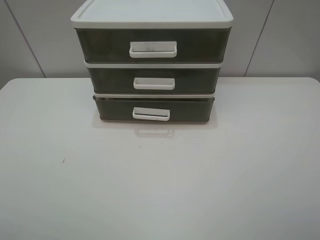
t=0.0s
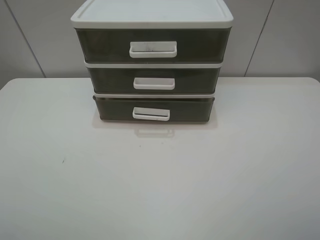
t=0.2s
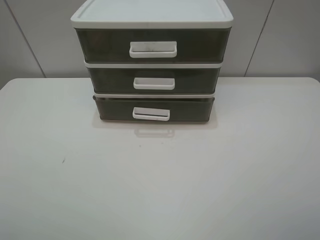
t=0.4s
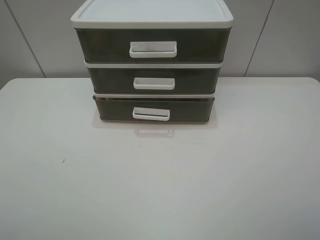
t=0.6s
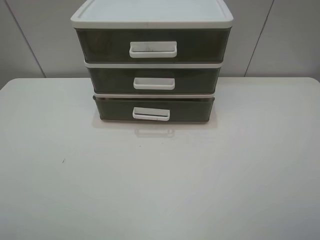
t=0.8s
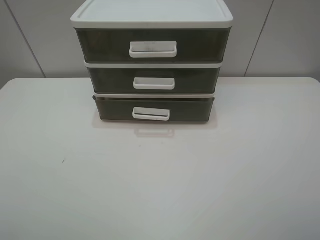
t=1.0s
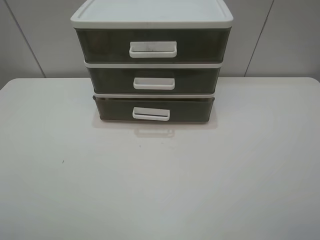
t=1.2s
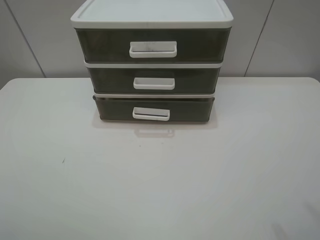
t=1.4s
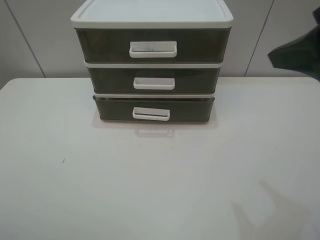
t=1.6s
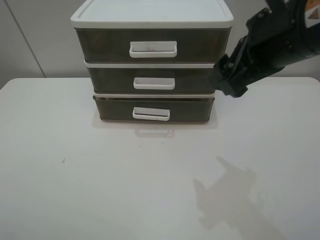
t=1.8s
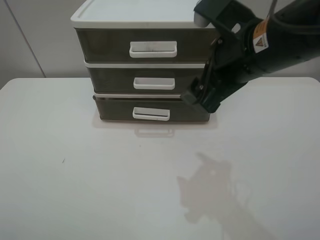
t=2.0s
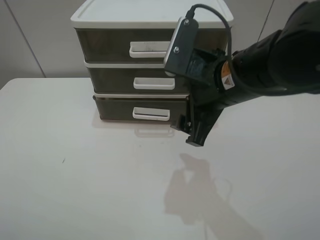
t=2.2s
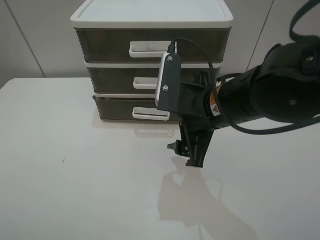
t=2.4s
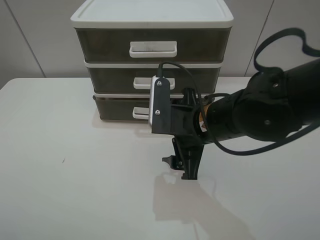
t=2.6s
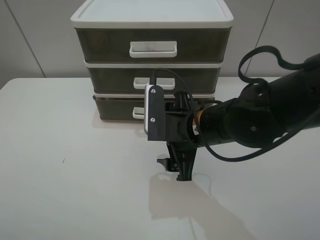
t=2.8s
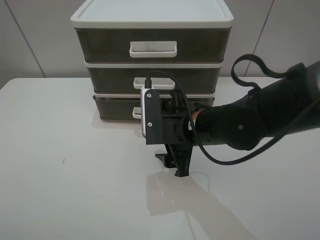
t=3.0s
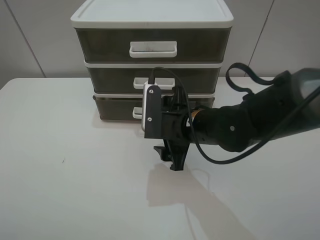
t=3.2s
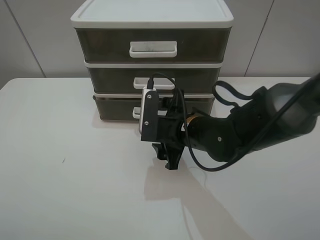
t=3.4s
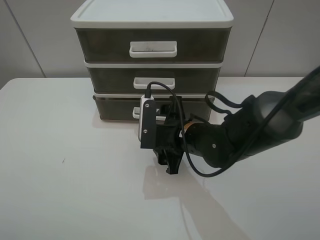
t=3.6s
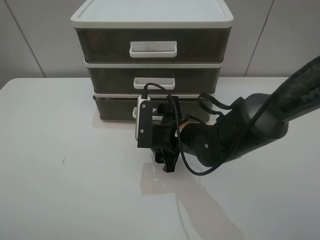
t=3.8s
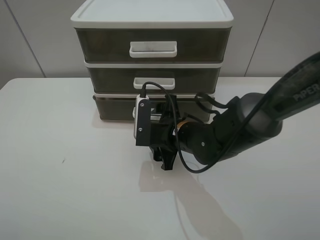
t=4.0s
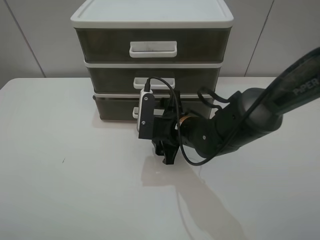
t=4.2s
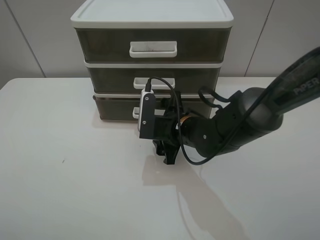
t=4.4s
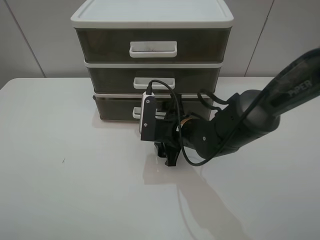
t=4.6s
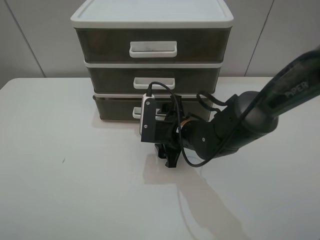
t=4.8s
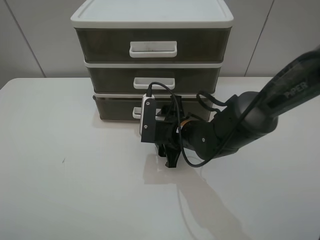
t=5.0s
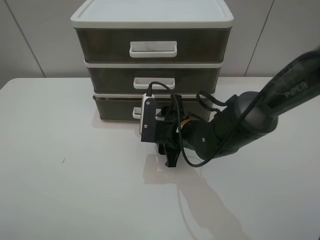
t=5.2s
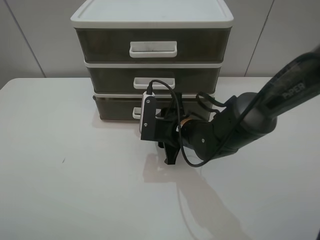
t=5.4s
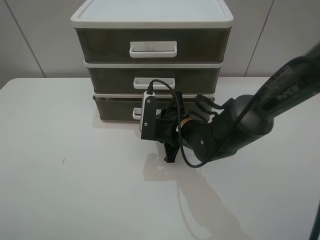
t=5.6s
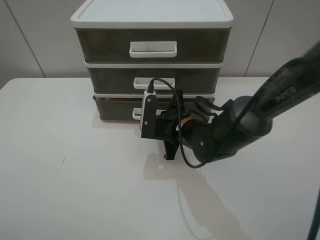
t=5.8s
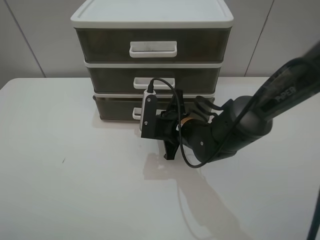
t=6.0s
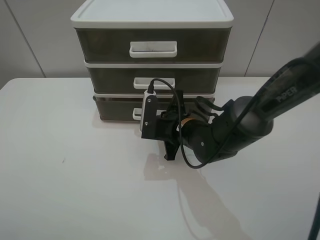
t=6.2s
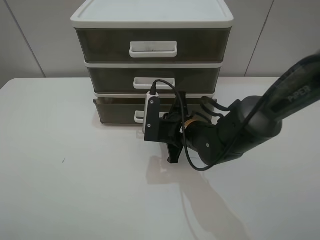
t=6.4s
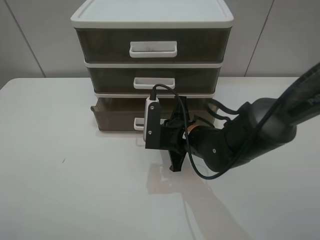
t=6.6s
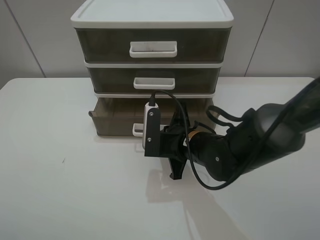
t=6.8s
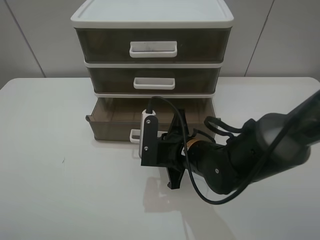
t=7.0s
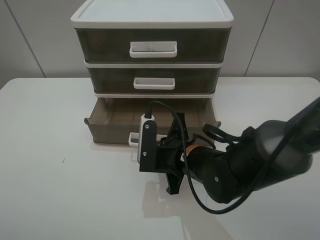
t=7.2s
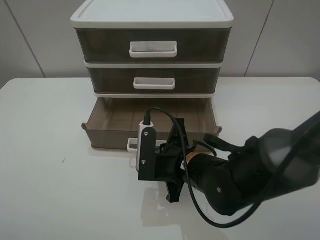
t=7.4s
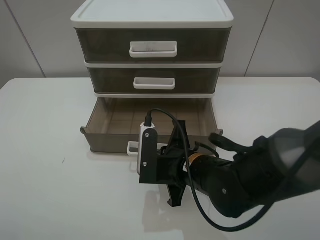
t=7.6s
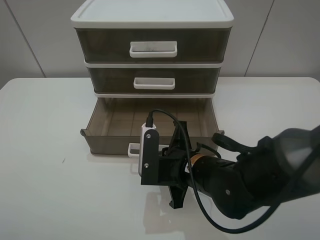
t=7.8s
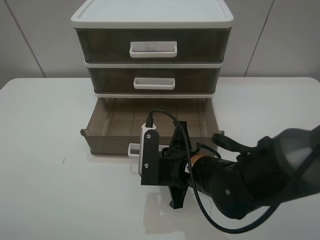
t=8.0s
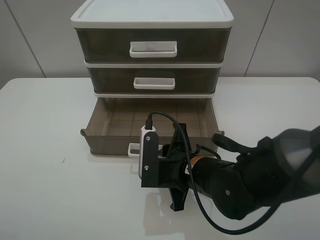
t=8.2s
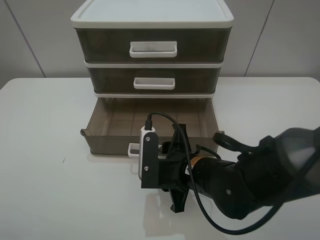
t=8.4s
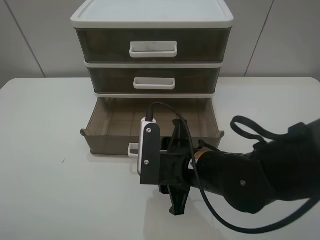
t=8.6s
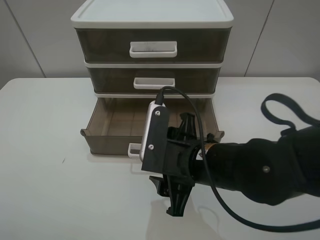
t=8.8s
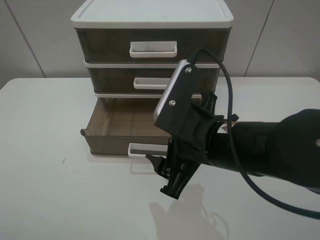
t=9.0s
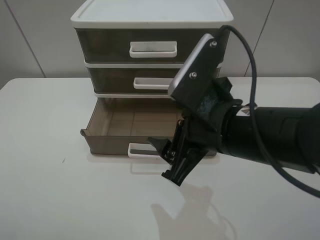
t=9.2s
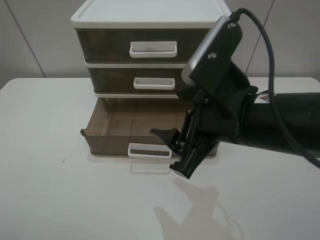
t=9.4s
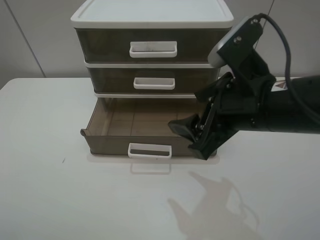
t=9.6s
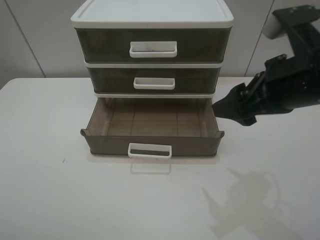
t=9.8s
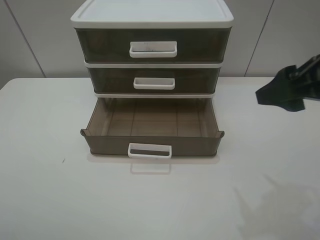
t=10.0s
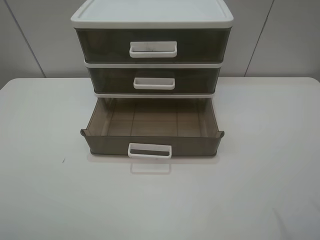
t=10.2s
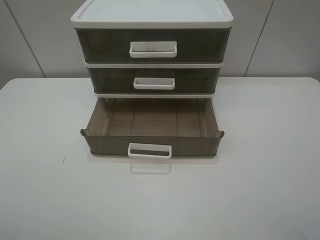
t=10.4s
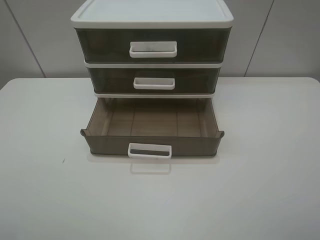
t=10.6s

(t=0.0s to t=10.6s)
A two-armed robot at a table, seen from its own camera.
Task of the whole recording: open the bottom drawer.
Step, t=0.0s - t=6.2s: Grab the bottom drawer with the right gripper.
Step, t=6.4s - t=8.6s: Pull open the drawer with the right gripper.
t=0.0s - t=1.6s: The right gripper moves forward, to the left and upward, approximately 20 cm.
t=1.6s - t=3.0s: The right gripper moves downward and to the left, roughly 25 cm.
t=3.0s - t=4.6s: The right gripper shifts some 5 cm downward.
t=4.6s - t=6.0s: The right gripper closes up.
t=6.0s - t=7.6s: The right gripper shifts some 10 cm backward.
t=7.6s - t=9.0s: The right gripper goes roughly 10 cm upward, and opens up.
t=9.0s - t=10.6s: The right gripper moves to the right, upward and backward, approximately 30 cm.

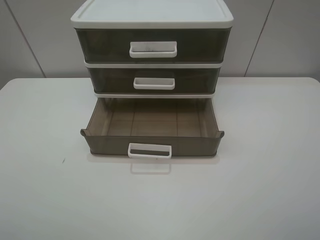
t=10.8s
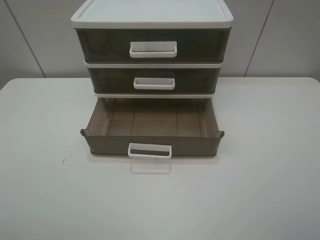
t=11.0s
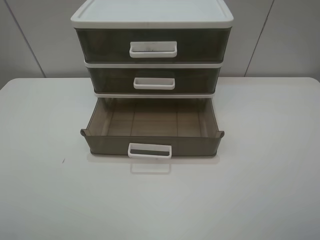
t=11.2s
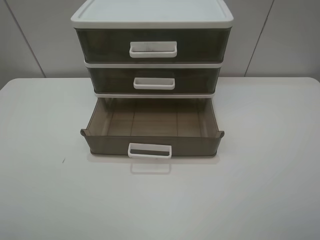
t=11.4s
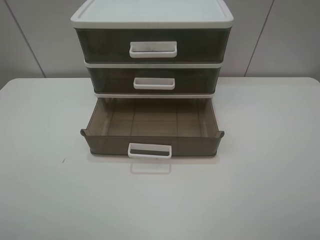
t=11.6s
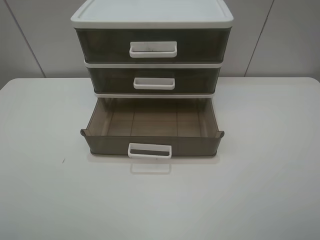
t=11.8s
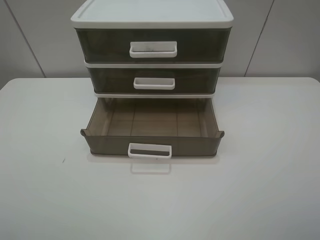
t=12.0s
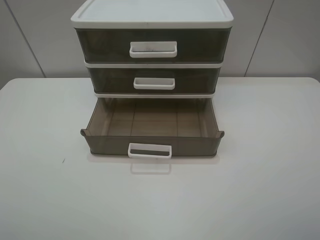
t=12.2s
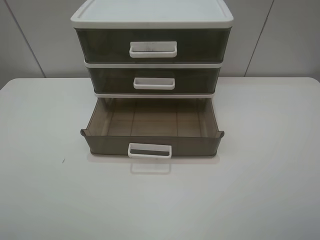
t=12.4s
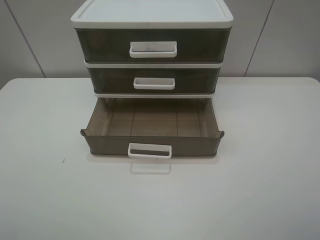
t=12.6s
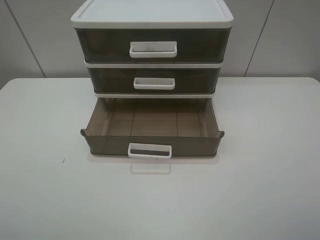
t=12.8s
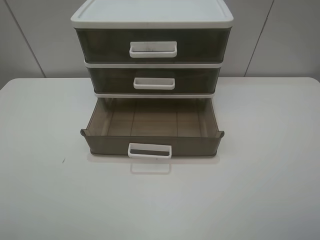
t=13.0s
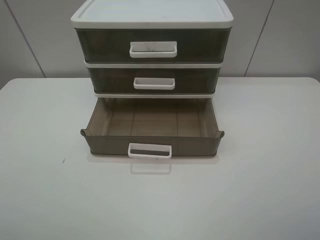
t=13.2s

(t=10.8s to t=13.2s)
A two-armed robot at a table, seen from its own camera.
Task of the whole recording: open the bottom drawer.
t=12.0s - t=13.2s: Neither gripper changes place.

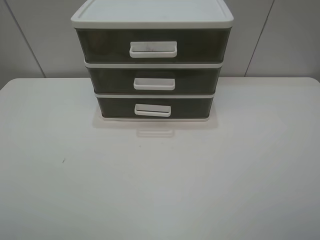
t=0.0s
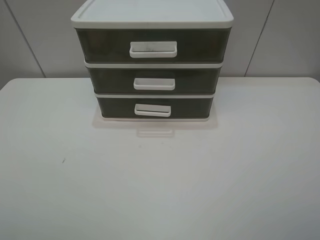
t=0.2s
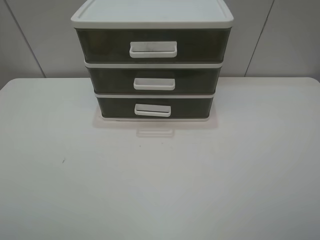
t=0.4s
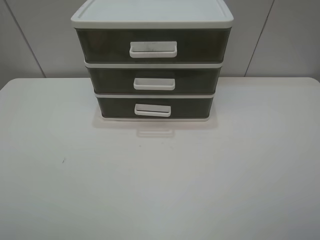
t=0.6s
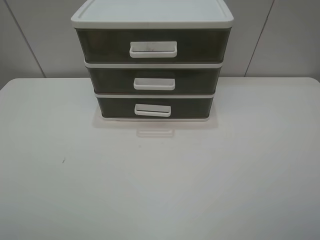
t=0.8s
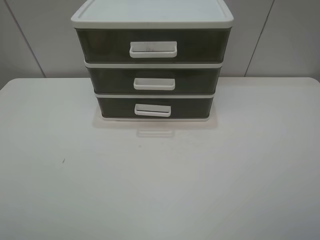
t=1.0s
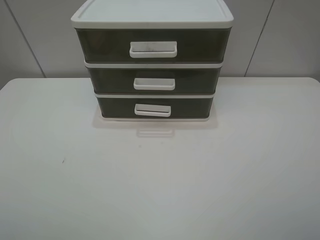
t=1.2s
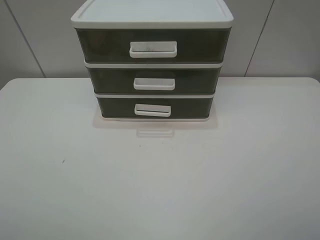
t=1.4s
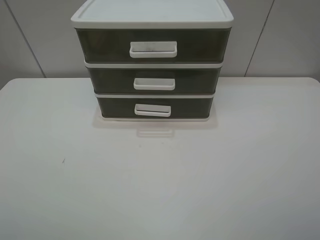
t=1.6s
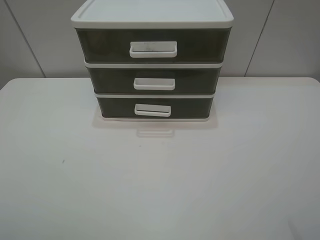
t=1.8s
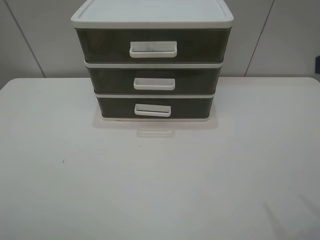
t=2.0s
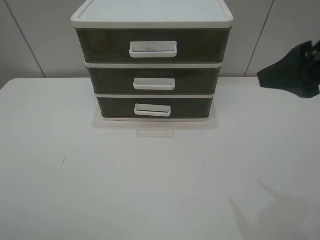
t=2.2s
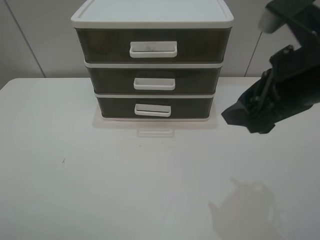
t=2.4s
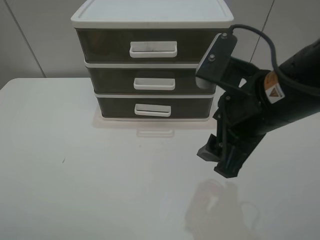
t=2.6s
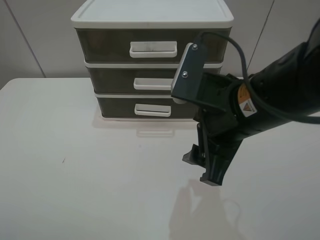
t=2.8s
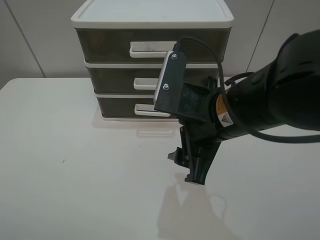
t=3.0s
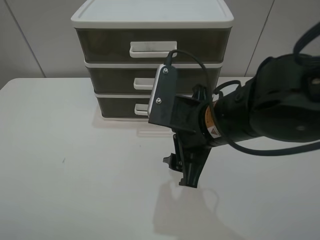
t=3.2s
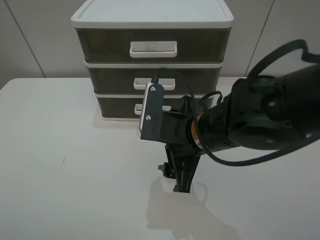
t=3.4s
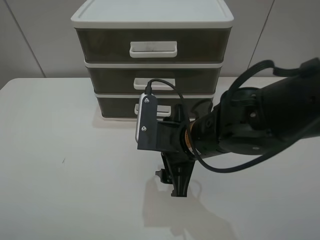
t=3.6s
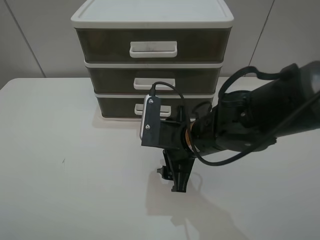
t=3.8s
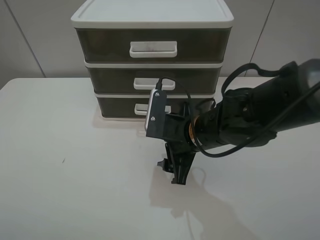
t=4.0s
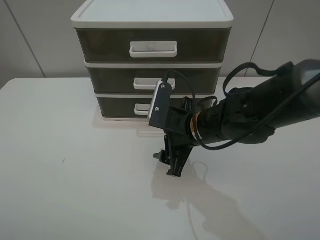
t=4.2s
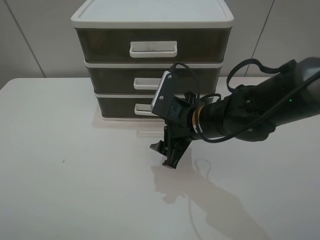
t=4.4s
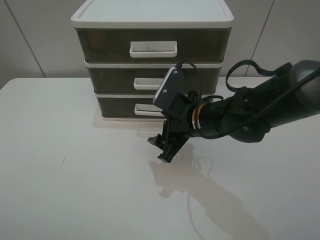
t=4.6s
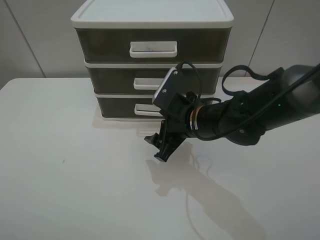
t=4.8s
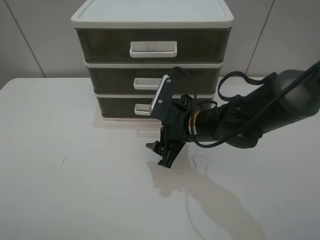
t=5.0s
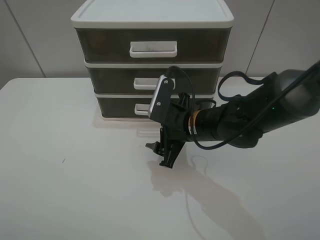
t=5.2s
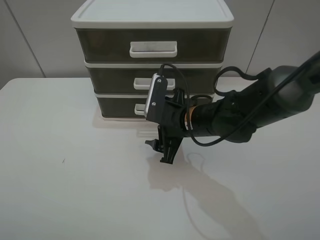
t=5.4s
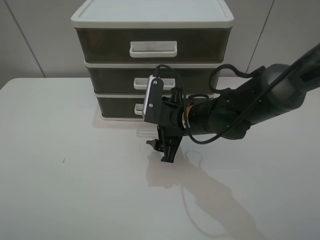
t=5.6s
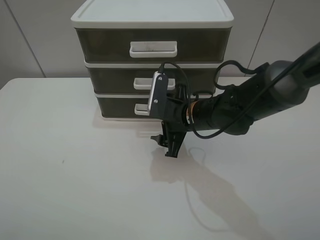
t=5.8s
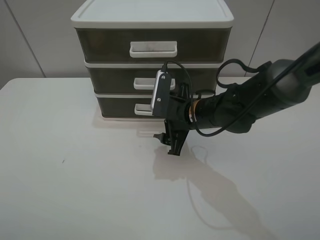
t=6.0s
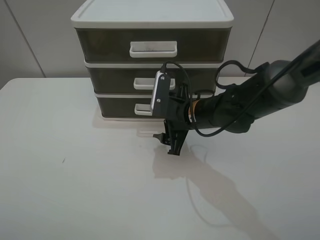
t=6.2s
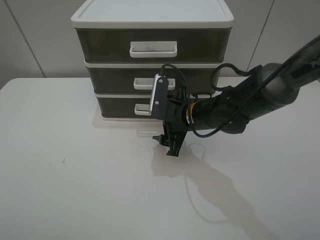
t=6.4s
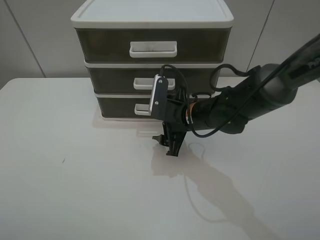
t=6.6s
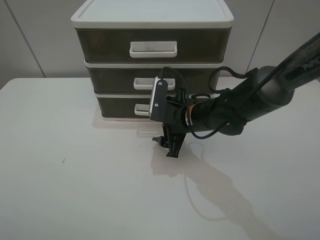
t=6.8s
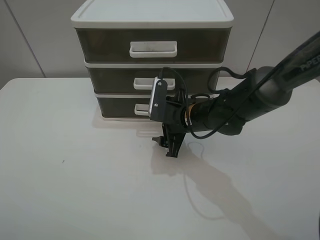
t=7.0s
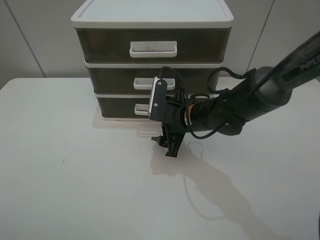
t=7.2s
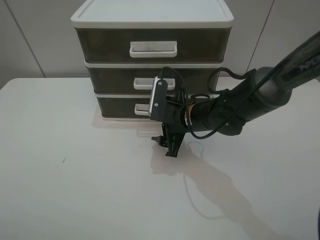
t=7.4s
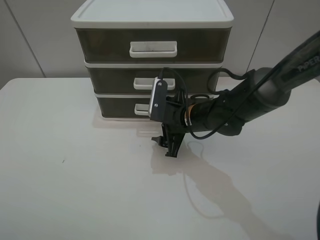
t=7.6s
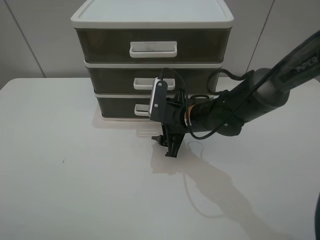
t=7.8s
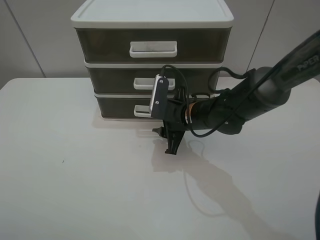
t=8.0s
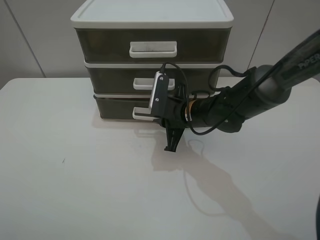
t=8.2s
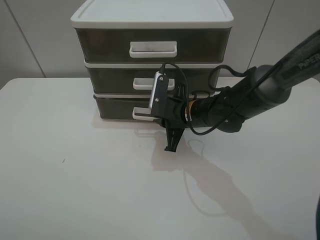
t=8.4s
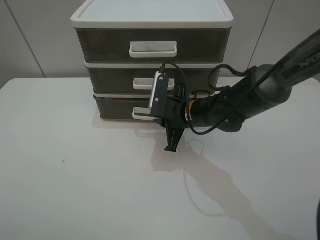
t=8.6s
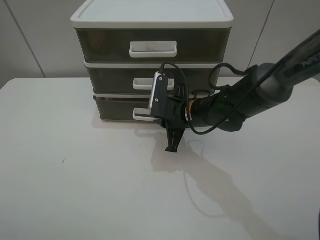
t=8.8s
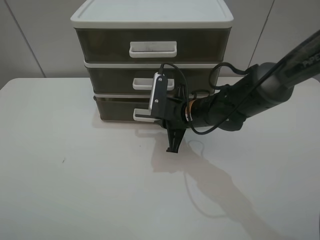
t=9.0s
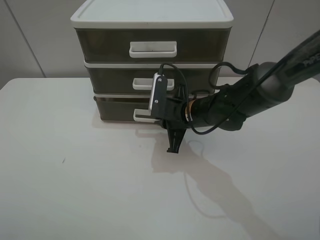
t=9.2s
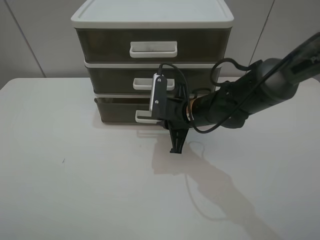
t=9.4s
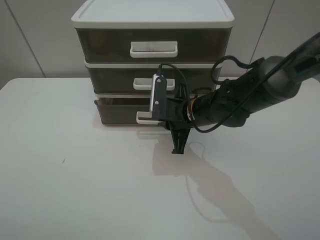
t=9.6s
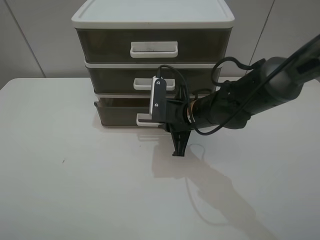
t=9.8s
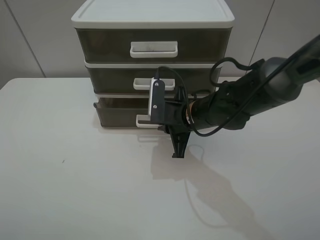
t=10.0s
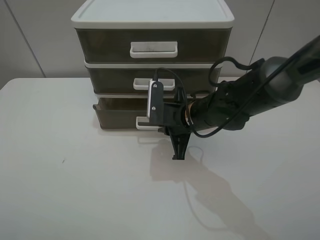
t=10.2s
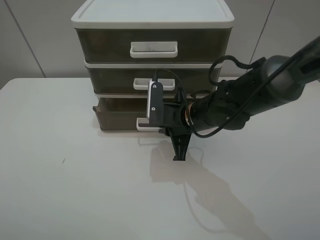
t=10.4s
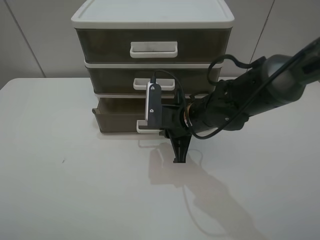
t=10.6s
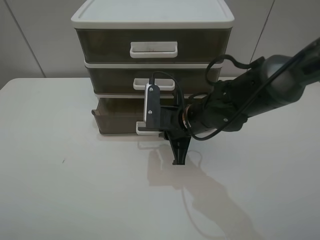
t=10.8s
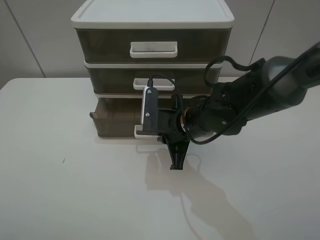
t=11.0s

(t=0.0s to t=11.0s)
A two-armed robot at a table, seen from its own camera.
Task of the whole recording: open the bottom drawer.
Step, t=0.0s - t=8.8s: Grab the bottom drawer with the right gripper.
t=1.6s - t=3.2s: The right gripper goes approximately 30 cm to the left, forward and downward.
t=3.2s - t=4.8s: The right gripper goes roughly 10 cm downward and forward.
t=6.2s - t=7.8s: There are only small adjustments of the grippers.
t=7.8s - t=9.4s: The right gripper closes its fingers.
t=9.4s - t=11.0s: The grippers make only small movements.
